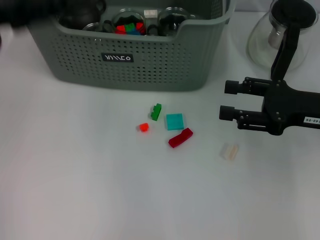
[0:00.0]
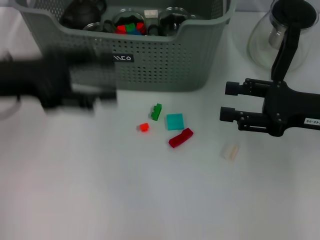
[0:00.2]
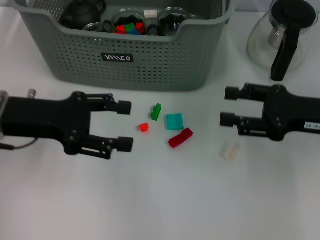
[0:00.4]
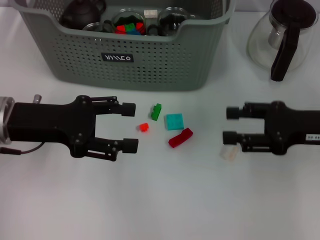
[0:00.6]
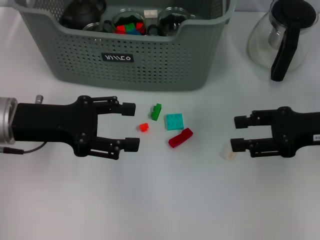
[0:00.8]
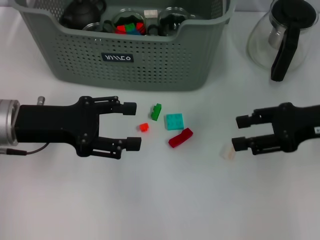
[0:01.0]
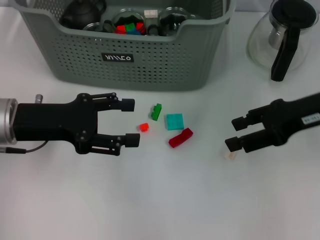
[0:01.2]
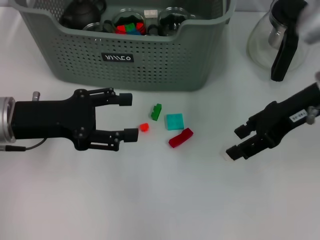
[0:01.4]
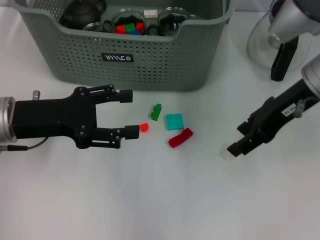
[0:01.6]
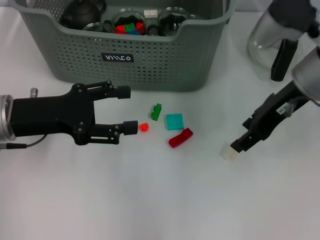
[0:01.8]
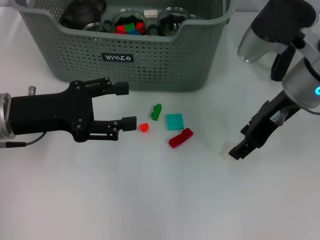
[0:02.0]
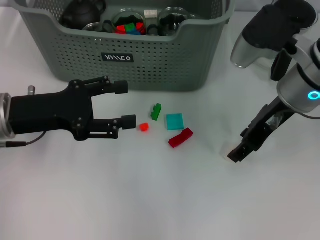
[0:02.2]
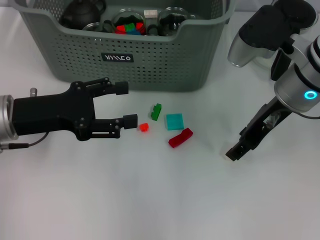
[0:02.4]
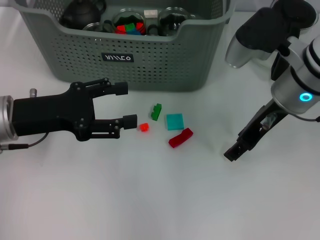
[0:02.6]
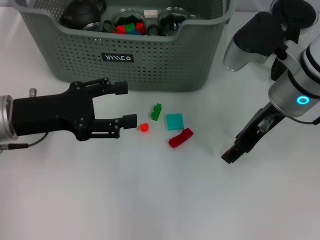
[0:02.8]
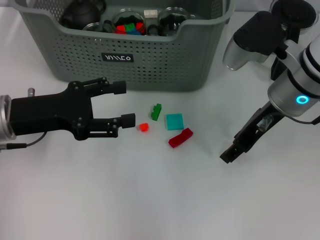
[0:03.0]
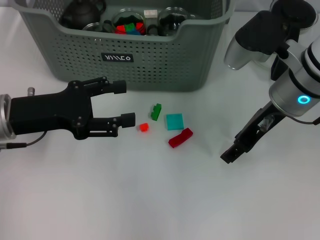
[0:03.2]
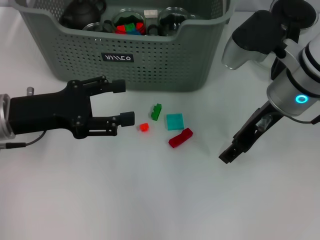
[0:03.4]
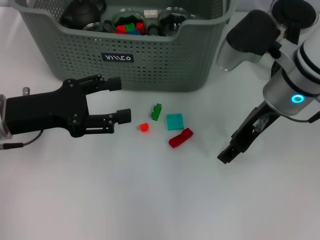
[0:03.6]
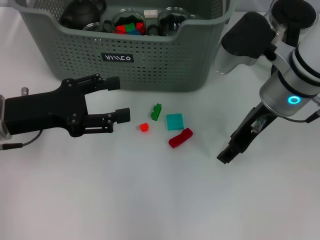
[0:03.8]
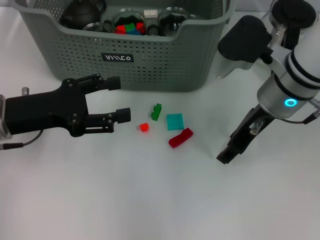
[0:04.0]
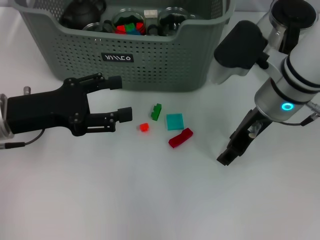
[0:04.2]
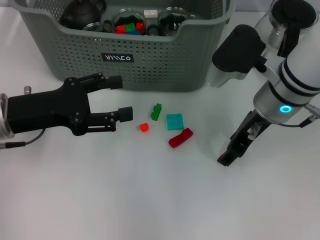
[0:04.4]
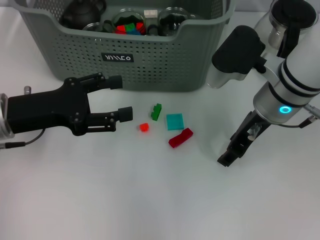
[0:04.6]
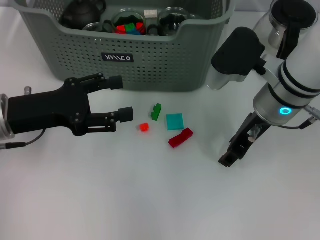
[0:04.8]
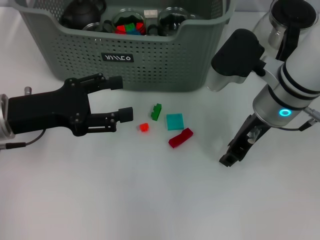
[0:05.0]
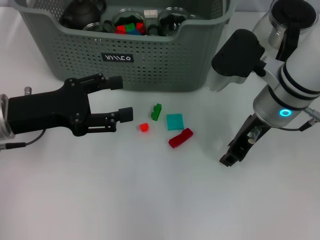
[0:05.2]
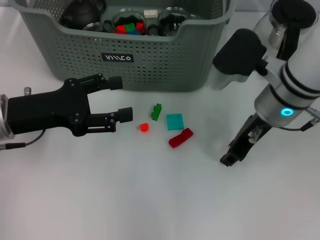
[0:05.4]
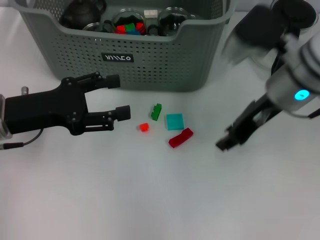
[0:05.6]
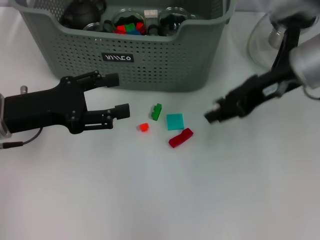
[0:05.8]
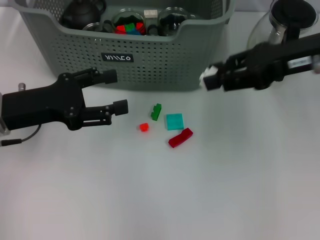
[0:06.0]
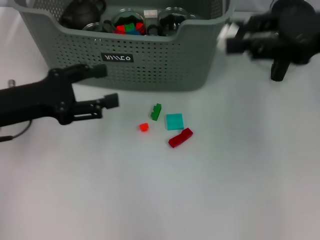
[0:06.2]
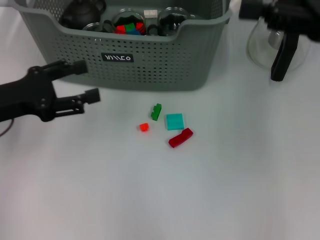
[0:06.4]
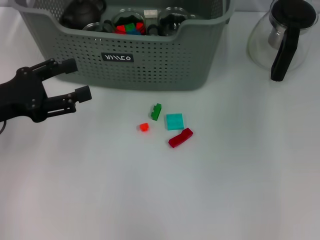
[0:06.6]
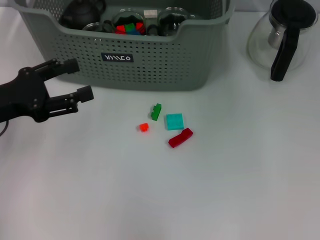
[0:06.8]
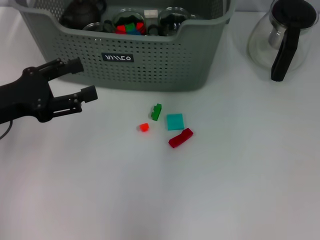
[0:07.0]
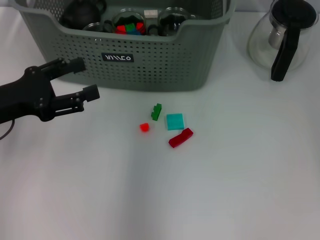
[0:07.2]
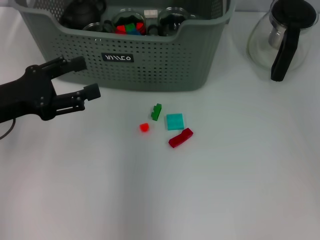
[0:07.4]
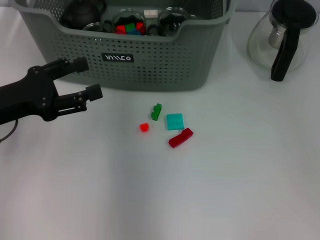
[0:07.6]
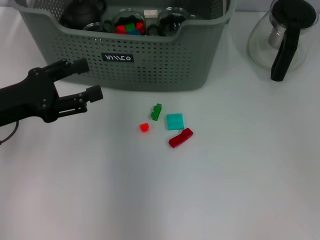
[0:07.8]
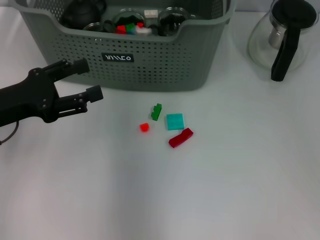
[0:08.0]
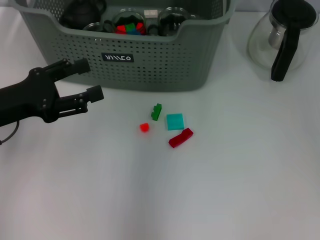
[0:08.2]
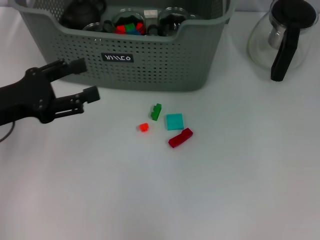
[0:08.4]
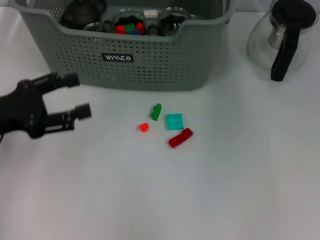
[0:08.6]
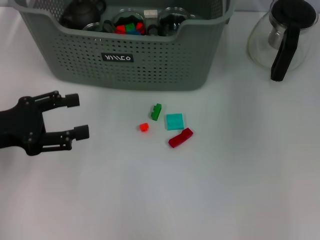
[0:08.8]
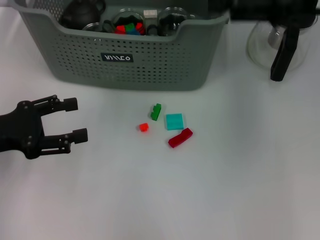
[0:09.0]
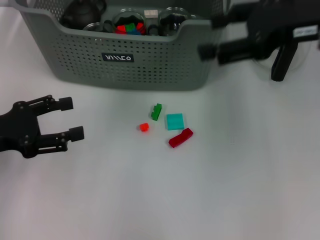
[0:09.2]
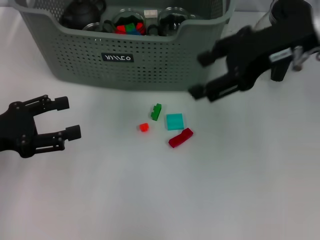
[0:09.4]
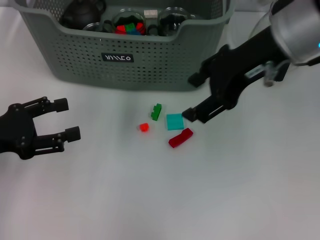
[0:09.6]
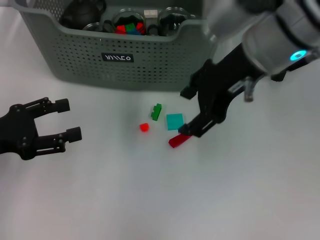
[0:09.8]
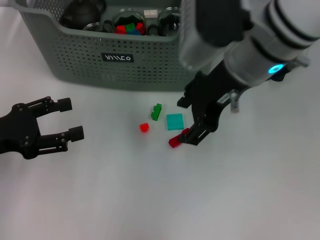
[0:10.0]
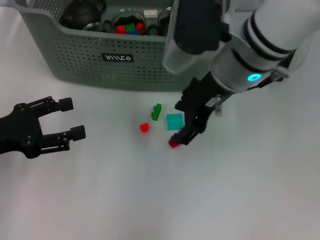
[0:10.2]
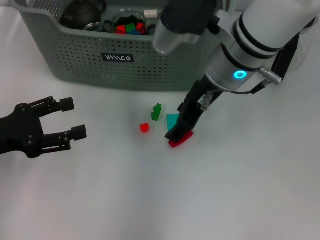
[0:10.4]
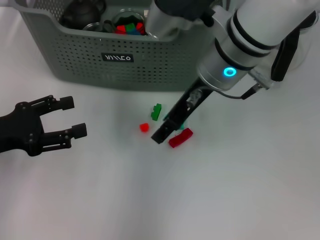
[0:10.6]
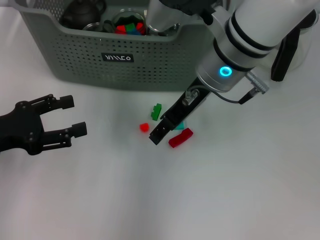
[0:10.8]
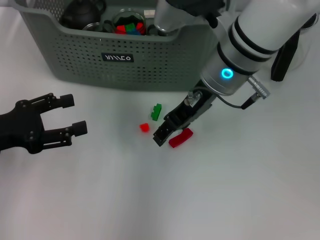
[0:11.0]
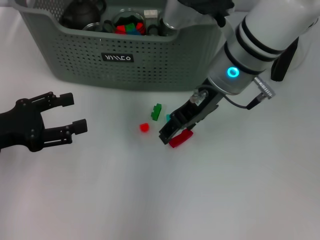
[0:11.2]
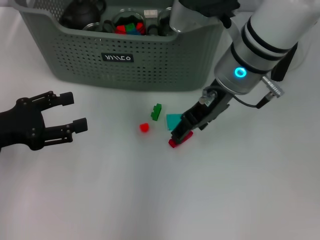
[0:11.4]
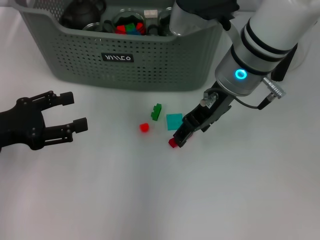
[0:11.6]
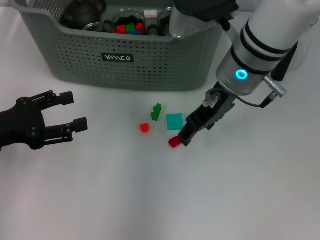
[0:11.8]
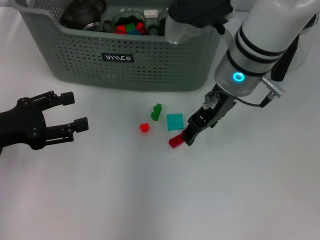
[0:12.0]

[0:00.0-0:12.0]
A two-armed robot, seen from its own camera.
Task of the whole recording: pick up the teacup on the table and place it into the storage bin, pick up the block on the table and place it into the storage bin.
Step, 0:00.0 to 0:05.2: Grasp the white block with right gripper.
Step, 0:05.4 to 0:08.0: Place the white block in the storage box with right gripper.
0:00.0 to 0:01.6: The right gripper moves to the left, upward and forward, some 10 cm. Meanwhile the left gripper travels downward by some 10 cm.
0:01.6 to 0:03.0: The right gripper changes place by roughly 5 cm.
0:03.0 to 0:04.4: There are only small adjustments of the grippers.
0:04.4 to 0:06.0: The right gripper travels upward and to the right by roughly 10 cm, and closes.
0:06.0 to 0:07.6: The right gripper travels to the left and forward by approximately 20 cm.
0:07.6 to 0:09.0: The right gripper goes about 20 cm to the right and backward, and opens up.
0:09.0 to 0:10.4: The right gripper is displaced to the left and downward by some 20 cm.

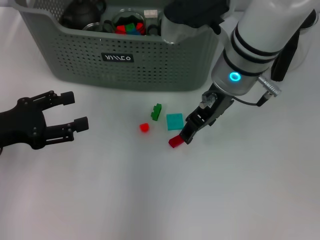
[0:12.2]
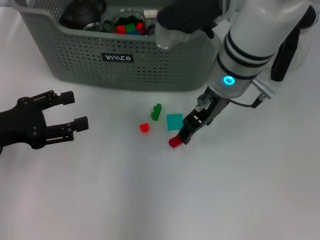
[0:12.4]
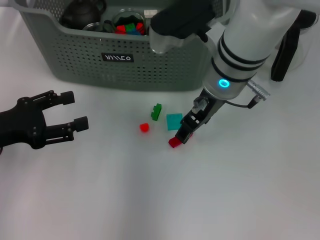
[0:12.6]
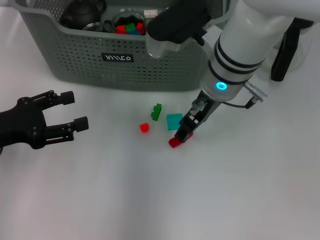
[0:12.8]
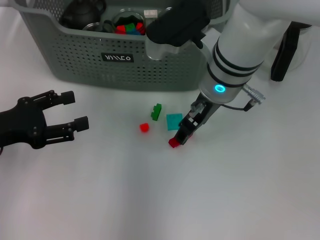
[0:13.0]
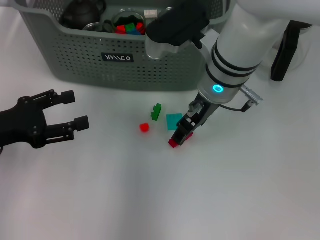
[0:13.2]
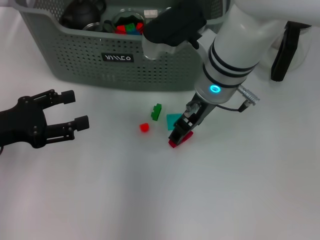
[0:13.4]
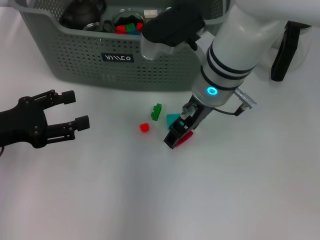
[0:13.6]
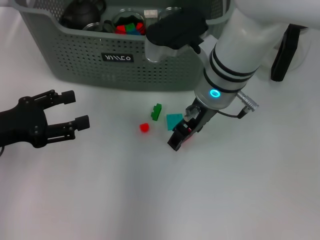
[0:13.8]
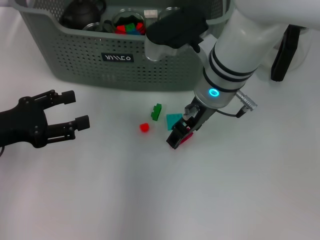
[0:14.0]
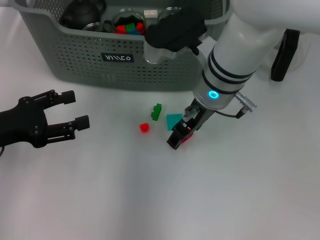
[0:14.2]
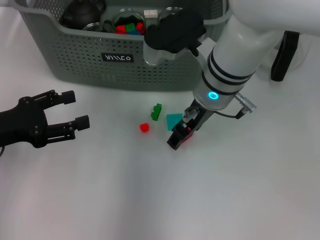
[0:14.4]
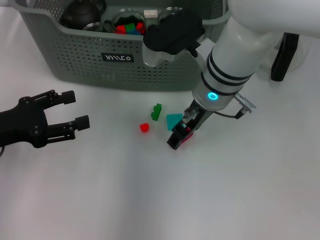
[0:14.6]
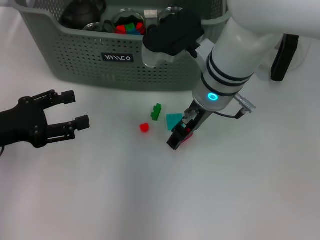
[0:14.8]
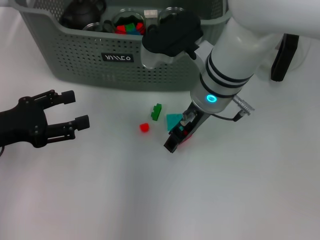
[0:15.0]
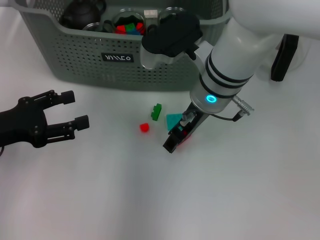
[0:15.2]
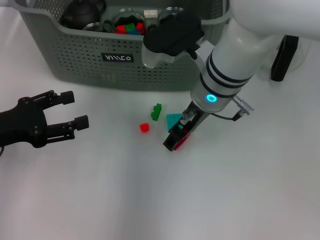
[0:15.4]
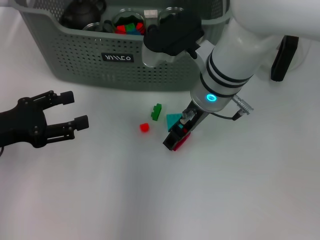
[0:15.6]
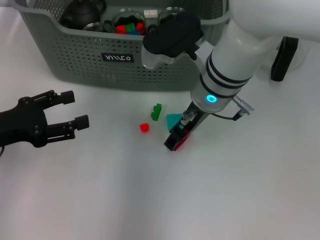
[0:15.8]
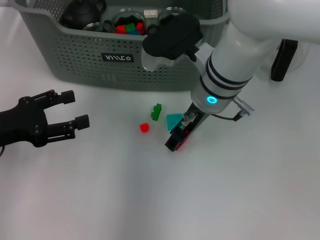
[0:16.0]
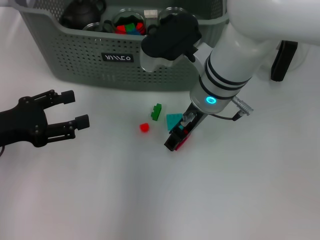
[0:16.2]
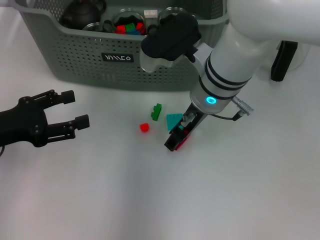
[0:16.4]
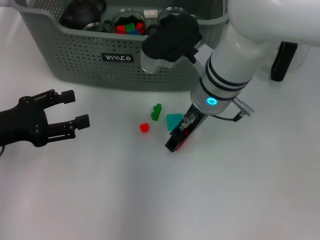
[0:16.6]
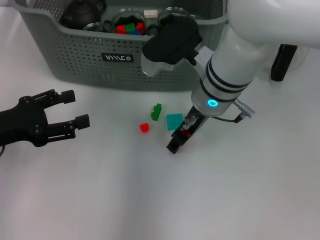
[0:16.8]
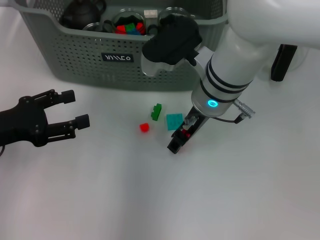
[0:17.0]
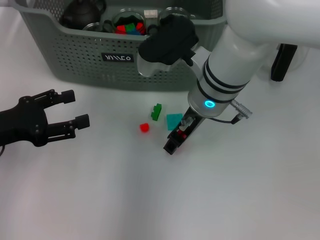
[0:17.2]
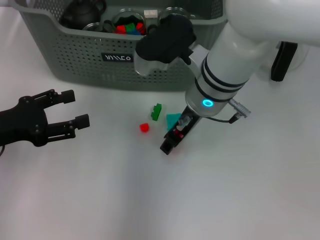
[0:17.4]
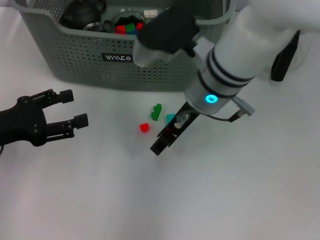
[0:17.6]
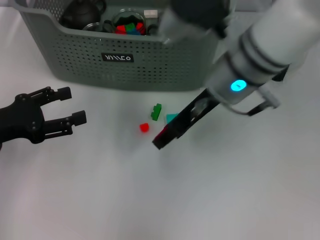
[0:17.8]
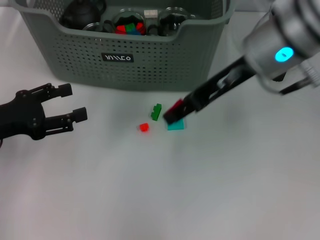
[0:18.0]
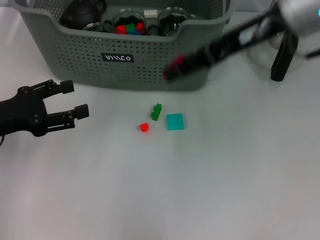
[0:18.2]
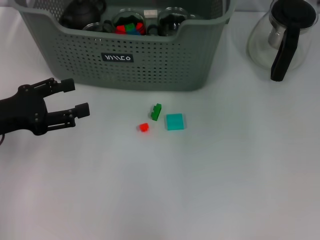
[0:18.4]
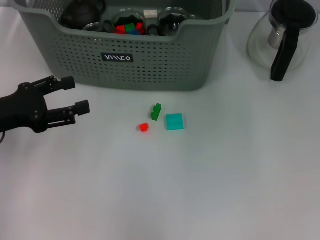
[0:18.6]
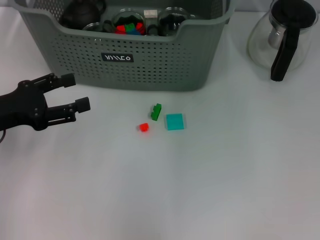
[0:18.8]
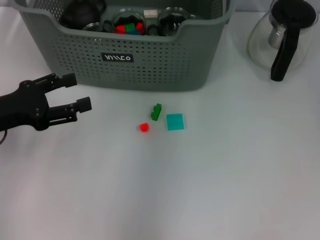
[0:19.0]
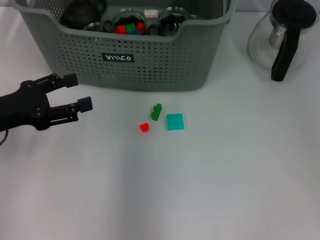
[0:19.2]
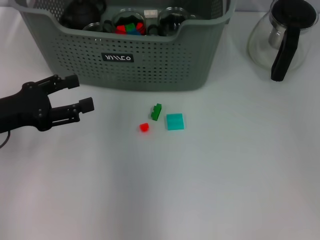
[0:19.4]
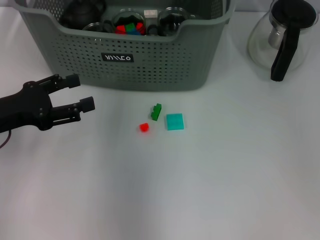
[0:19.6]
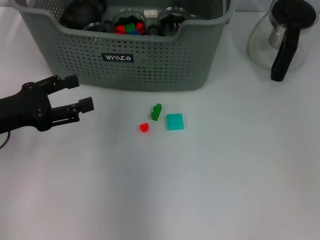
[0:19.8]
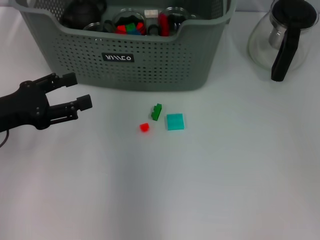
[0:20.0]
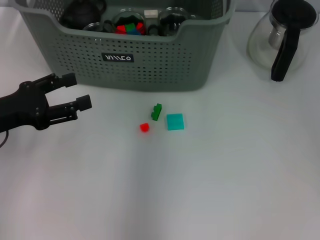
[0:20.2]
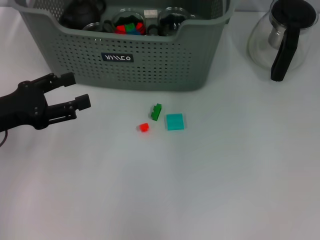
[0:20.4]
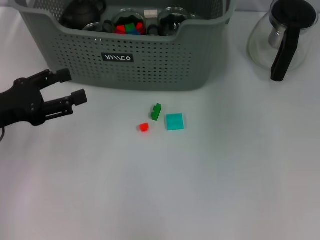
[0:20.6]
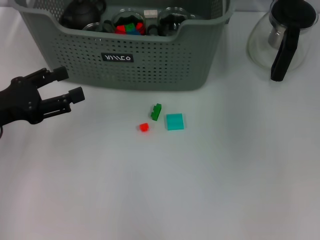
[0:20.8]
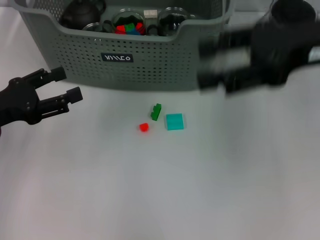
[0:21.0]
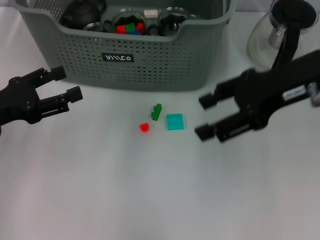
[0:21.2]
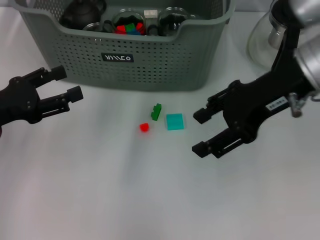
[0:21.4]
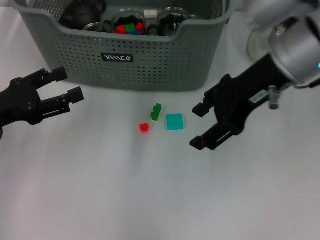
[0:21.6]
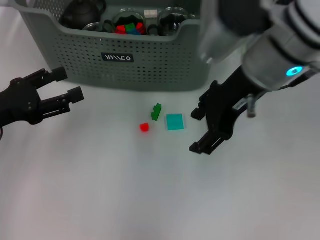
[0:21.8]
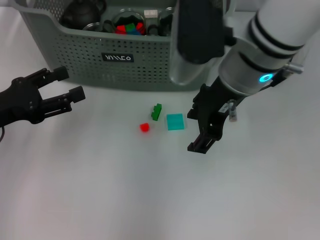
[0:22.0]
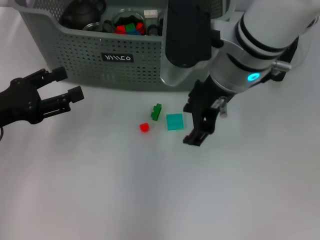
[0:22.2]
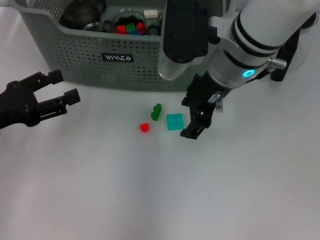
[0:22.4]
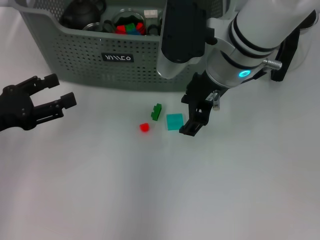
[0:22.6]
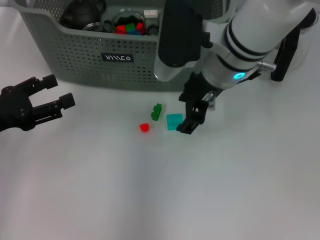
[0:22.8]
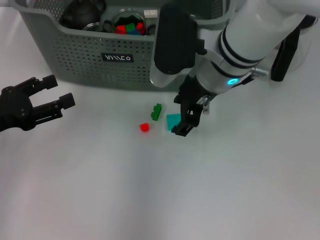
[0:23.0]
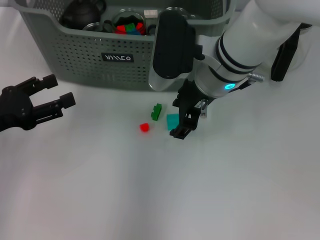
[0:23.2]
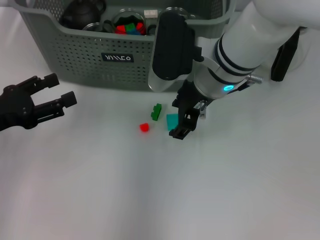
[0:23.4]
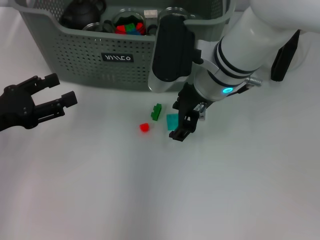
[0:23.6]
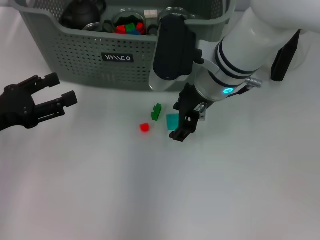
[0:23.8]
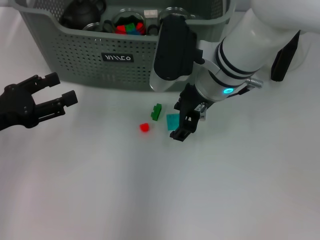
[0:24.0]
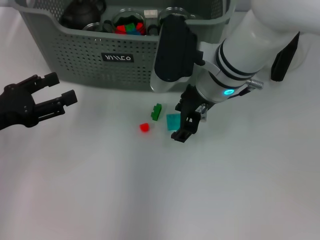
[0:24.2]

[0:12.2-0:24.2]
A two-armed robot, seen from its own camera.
Task of the whole recording: pick up the teacup on the table and place it into the storage bin, pick up the block on the table and place it into the storage bin.
0:12.2 to 0:13.8: The grippers stay close to where they were, moving slightly.
0:13.8 to 0:15.2: Both grippers stay put.
0:15.2 to 0:16.6: Both grippers stay about where they are.
0:16.6 to 0:18.2: The right gripper moves upward and to the right, approximately 15 cm.
0:18.2 to 0:19.8: The right gripper goes roughly 15 cm forward and to the left.
0:19.8 to 0:21.2: The right gripper is displaced to the right and backward by approximately 20 cm.
0:21.2 to 0:22.6: The right gripper is displaced to the left by some 15 cm.
0:22.6 to 0:24.2: The grippers make only small movements.
